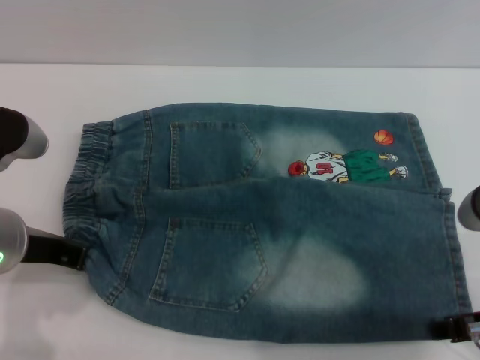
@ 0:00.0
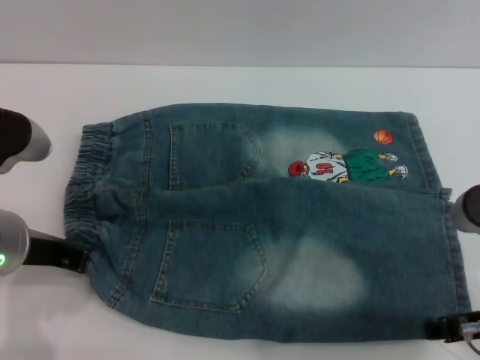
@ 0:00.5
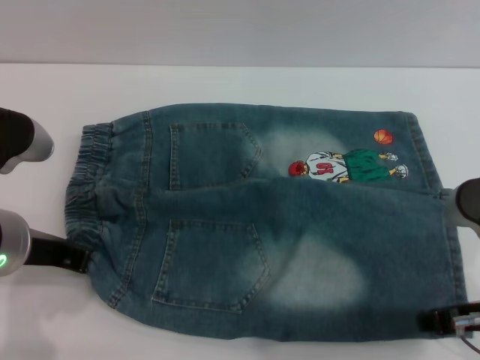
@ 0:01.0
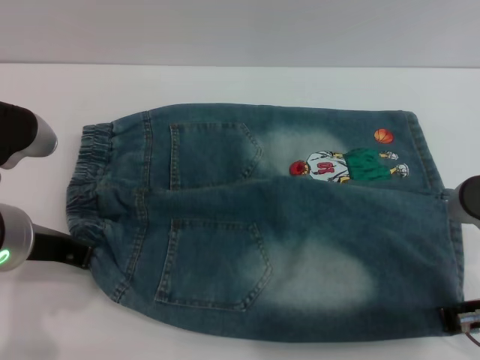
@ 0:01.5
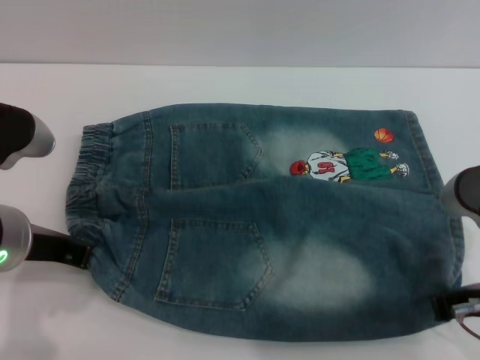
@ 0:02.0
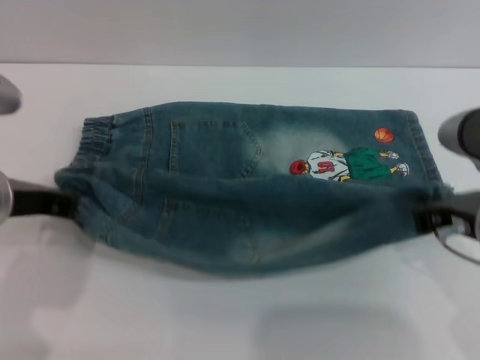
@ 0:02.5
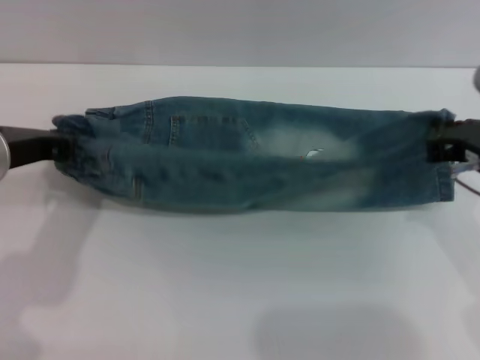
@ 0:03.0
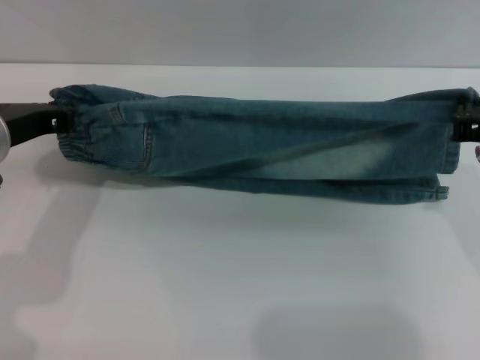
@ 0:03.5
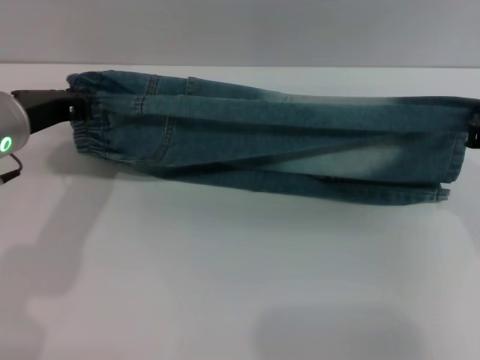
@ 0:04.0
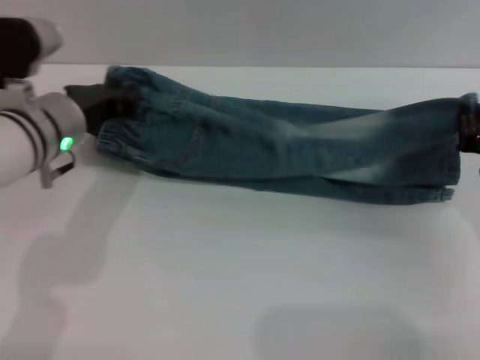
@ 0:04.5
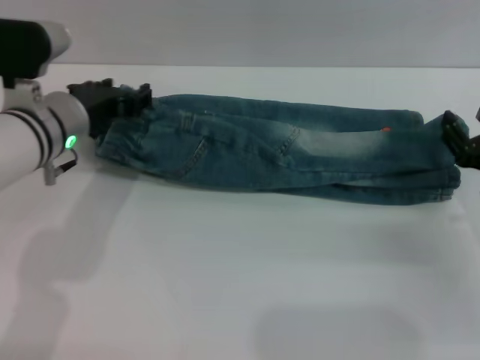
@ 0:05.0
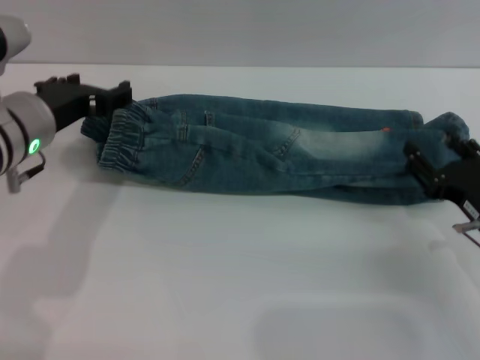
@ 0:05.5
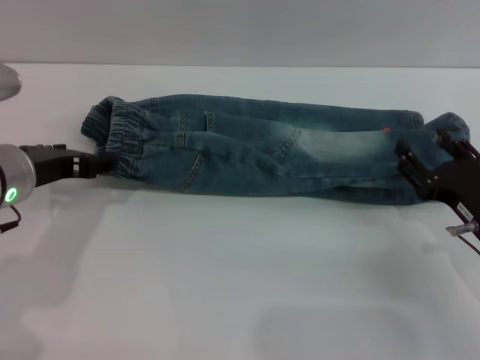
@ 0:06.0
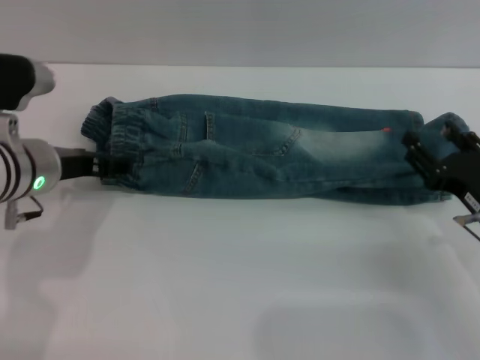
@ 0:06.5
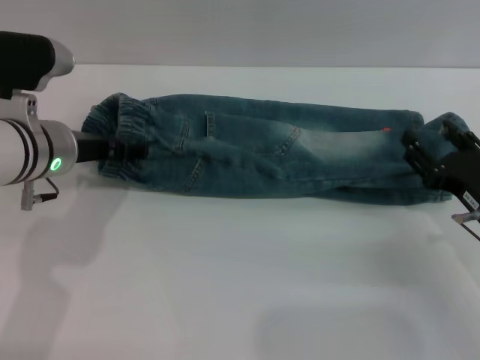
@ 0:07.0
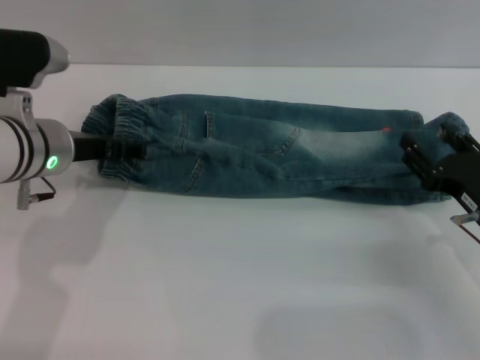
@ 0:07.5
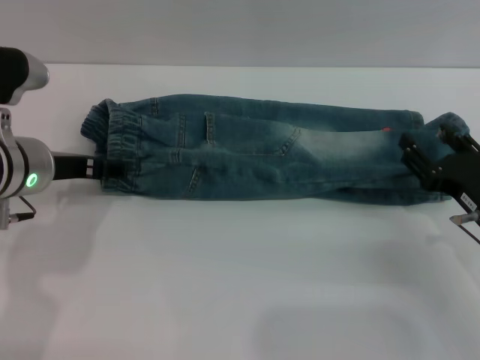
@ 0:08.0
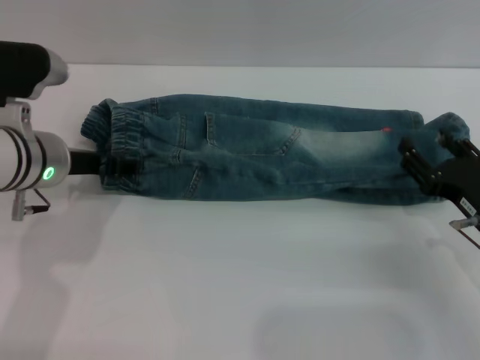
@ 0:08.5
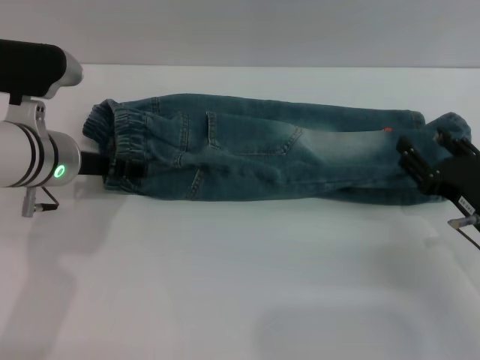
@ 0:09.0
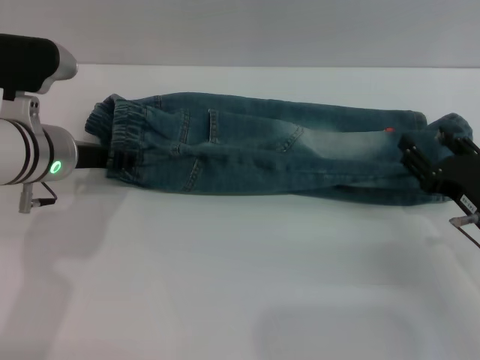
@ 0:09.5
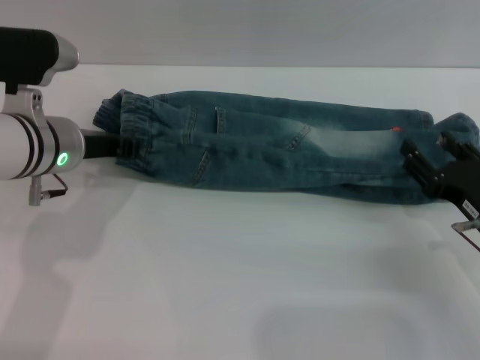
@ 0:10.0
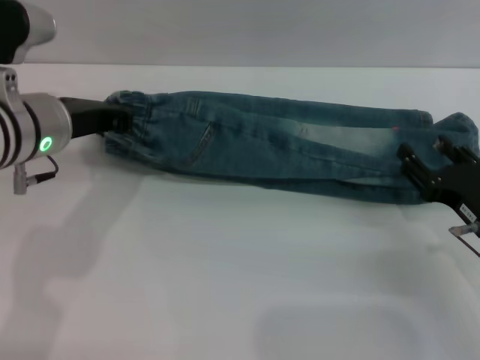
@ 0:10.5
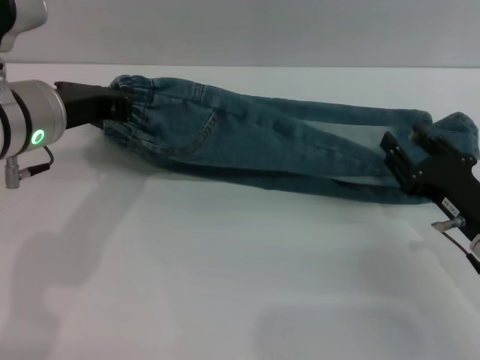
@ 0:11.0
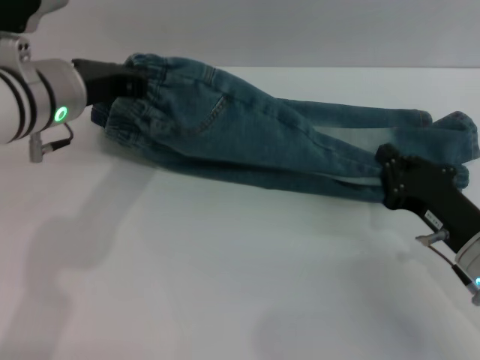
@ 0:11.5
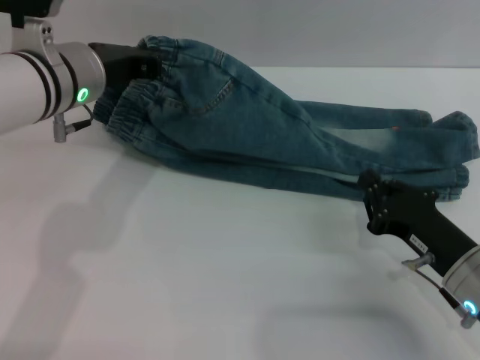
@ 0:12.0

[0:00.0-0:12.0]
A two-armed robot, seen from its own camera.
Step, 0:00.0 to 0:09.0: Fold the bottom of the pants upward with both grippers.
0:00.0 to 0:02.0: The right gripper closes up.
0:02.0 to 0:04.0: The left gripper travels forward by some 5 cm, while the right gripper heads forward and to the right, covering some 10 cm.
0:04.0 to 0:06.0: The left gripper opens up. The right gripper heads downward, covering approximately 10 cm, and opens up.
0:06.0 to 0:08.0: There are only small adjustments of the grippers.
0:08.0 to 0:10.0: The left gripper closes.
0:10.0 to 0:12.0: The right gripper closes; the left gripper shifts by approximately 5 cm.

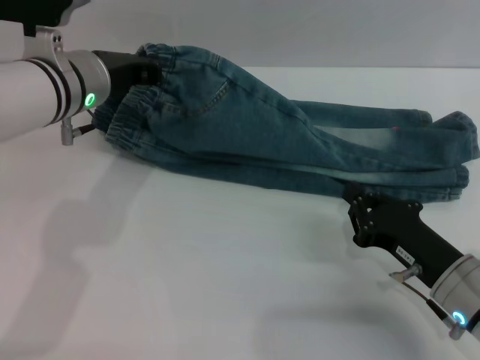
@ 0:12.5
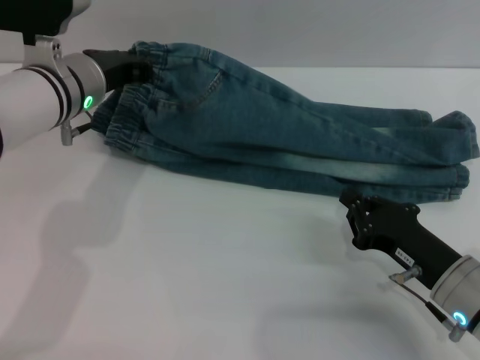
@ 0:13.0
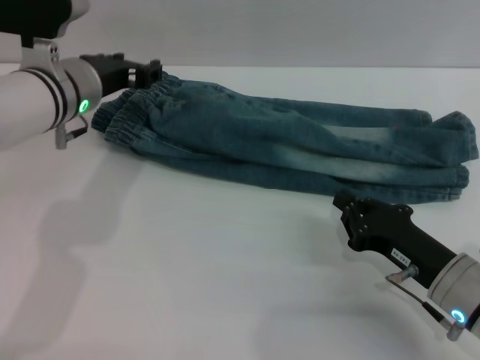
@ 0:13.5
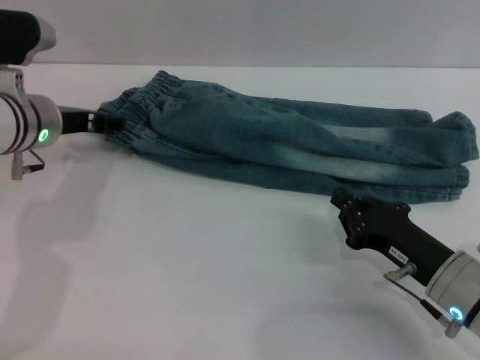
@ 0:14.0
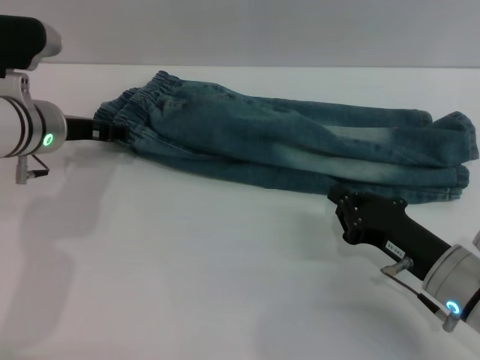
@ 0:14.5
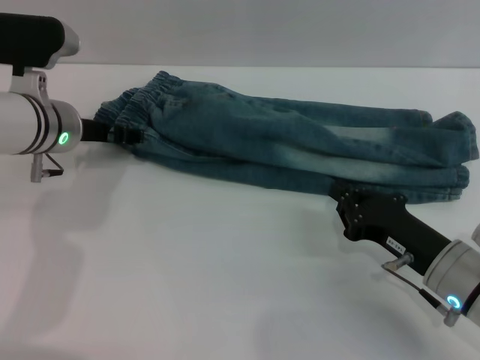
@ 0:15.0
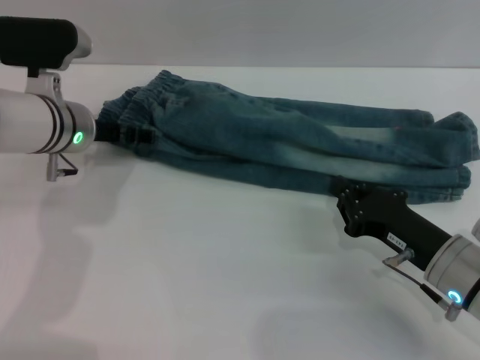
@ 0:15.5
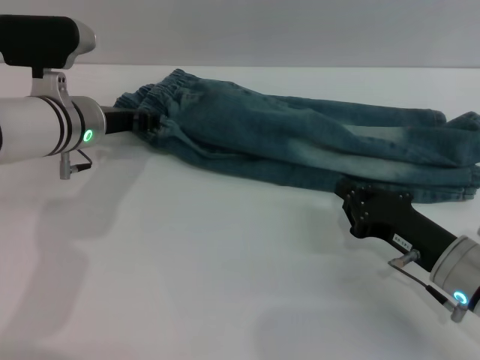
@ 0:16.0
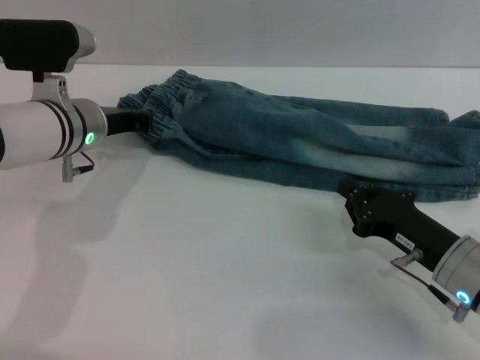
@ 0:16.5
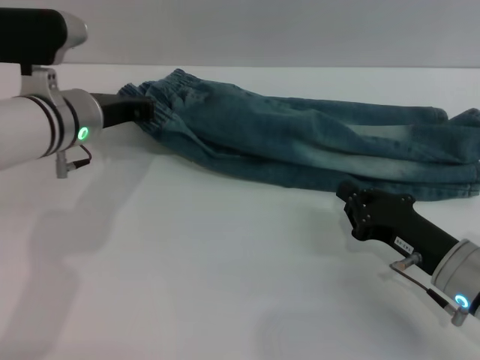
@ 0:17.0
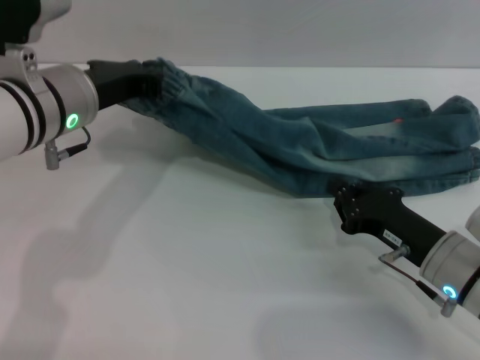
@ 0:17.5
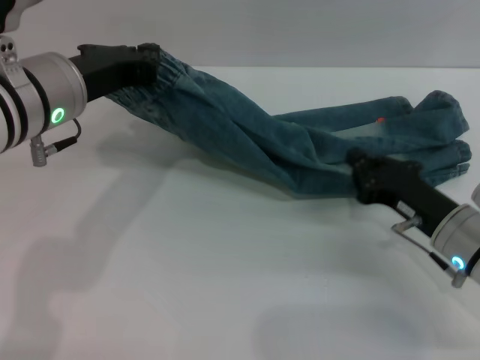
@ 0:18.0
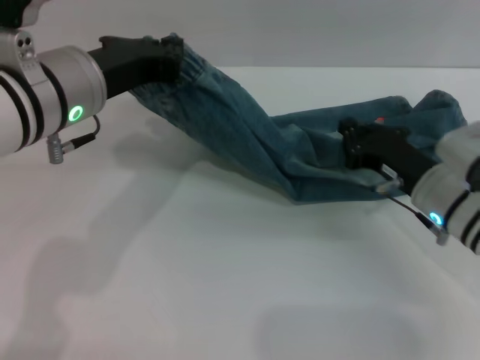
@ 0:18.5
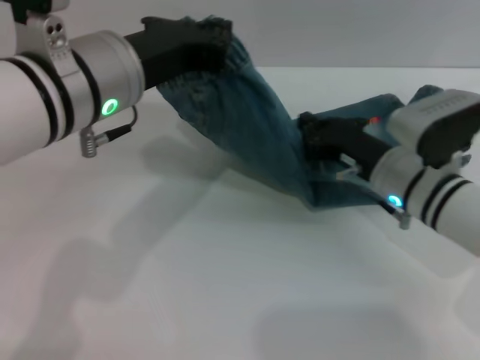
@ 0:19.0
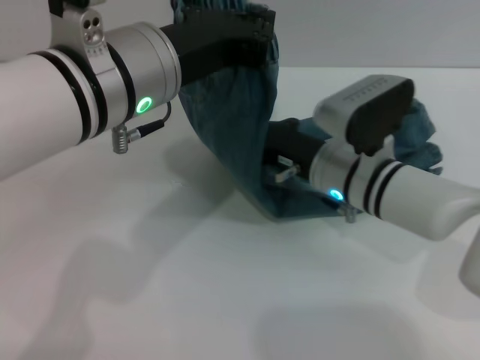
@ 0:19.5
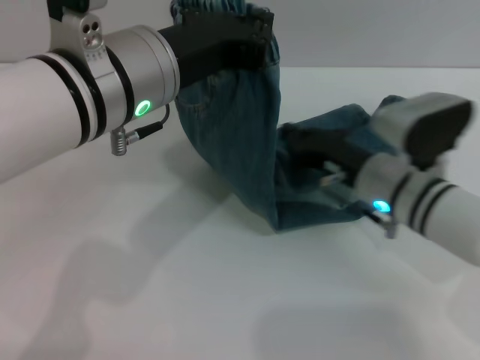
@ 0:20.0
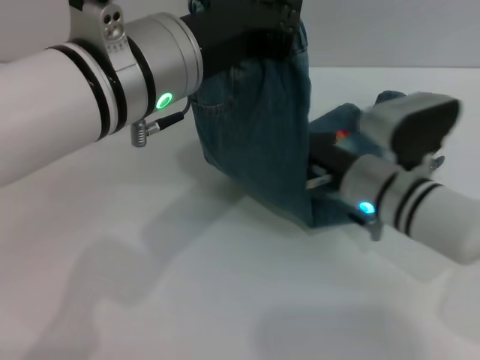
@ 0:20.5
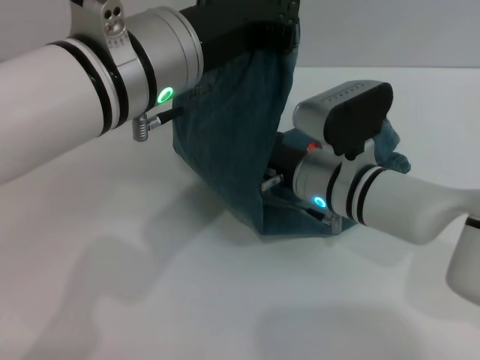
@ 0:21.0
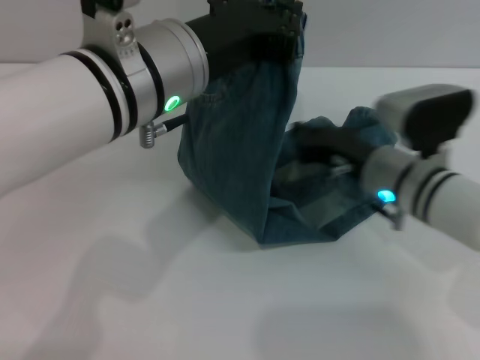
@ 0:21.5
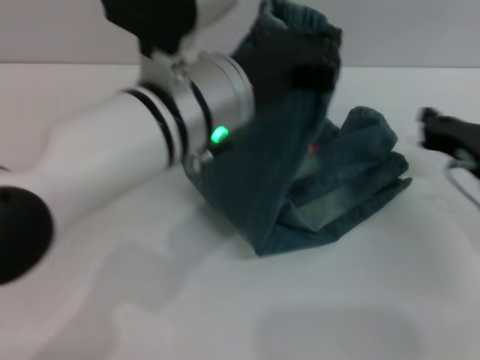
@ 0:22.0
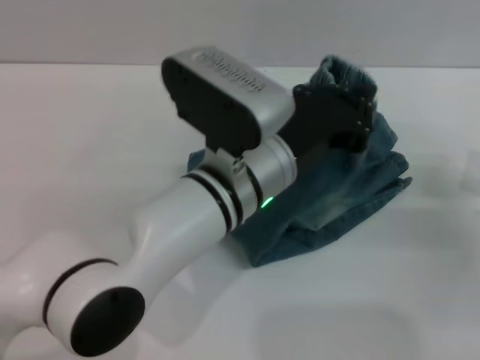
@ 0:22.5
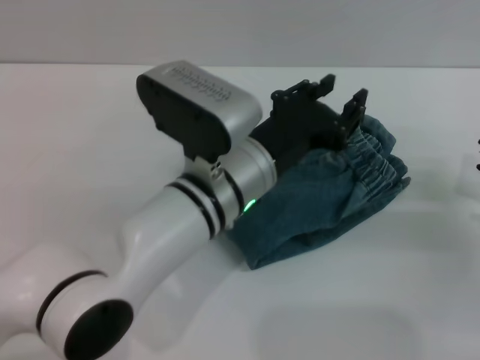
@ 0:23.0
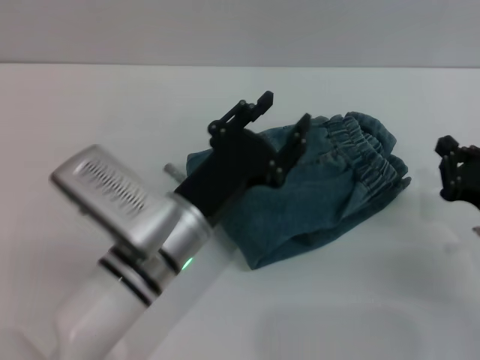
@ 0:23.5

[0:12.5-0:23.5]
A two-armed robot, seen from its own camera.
Step, 0:12.5 to 0:23.0: Fold the pants from left to right with the left gripper.
0:12.5 to 0:14.5: The left gripper ends up about 5 cm from where it was, and opens its fingers.
0:14.5 to 0:16.0: There are only small adjustments of the grippers.
0:16.0 to 0:18.0: The left gripper shifts approximately 10 cm upward and backward, and closes its fingers.
0:18.0 to 0:20.0: The right gripper goes roughly 10 cm to the left and forward, while the left gripper moves to the right, approximately 5 cm.
0:21.5 to 0:23.5: The left gripper is displaced downward by approximately 15 cm, and opens. Meanwhile the right gripper travels to the right and backward by approximately 15 cm.

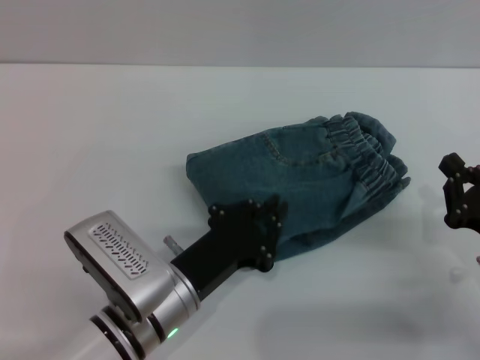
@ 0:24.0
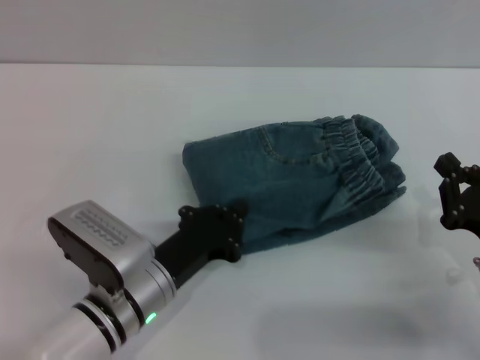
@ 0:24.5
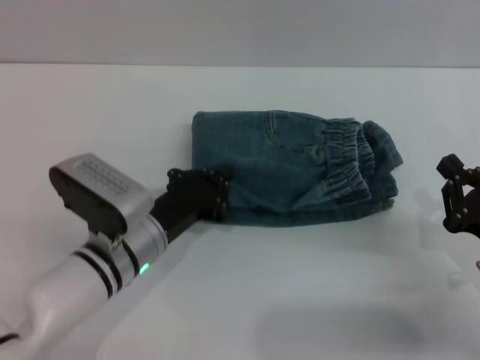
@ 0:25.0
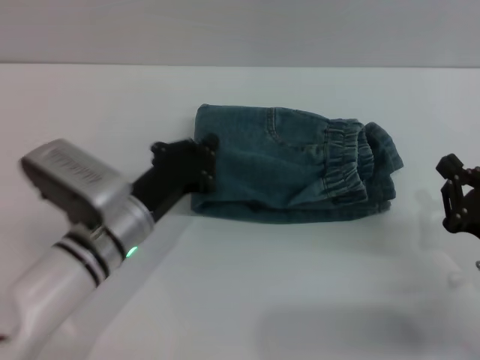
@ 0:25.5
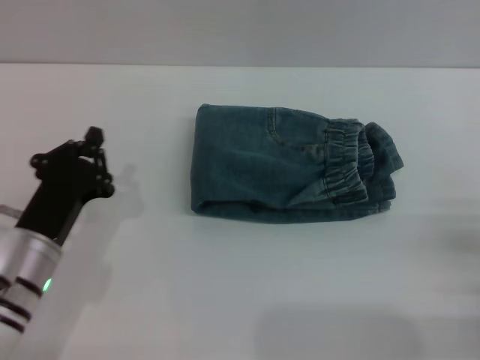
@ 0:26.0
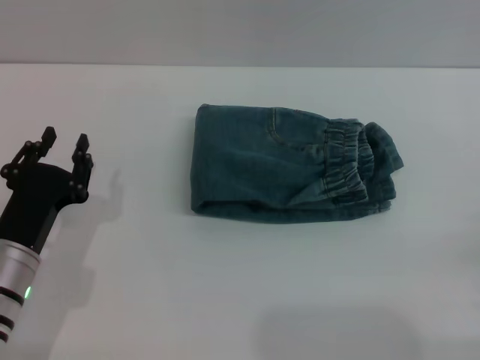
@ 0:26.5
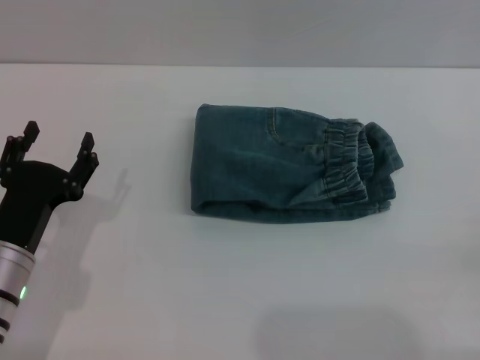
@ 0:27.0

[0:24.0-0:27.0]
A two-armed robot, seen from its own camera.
0:24.0 to 0:25.5: The left gripper heads forward, covering roughly 5 cm.
0:25.5 to 0:27.0: The right gripper goes approximately 10 cm to the right and backward, and opens up. Meanwhile the left gripper heads to the left and backward, covering roughly 10 cm, and opens its fingers.
